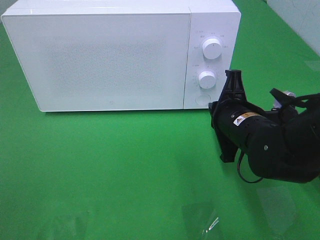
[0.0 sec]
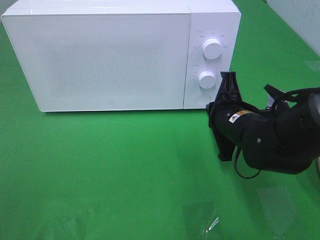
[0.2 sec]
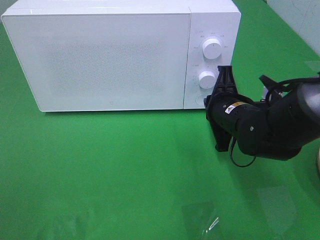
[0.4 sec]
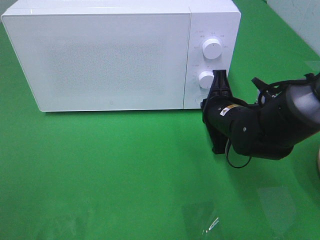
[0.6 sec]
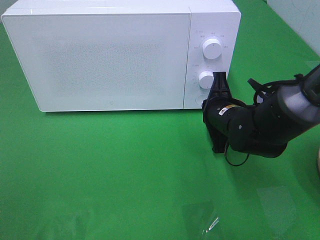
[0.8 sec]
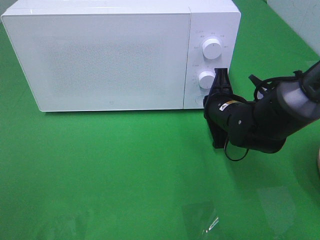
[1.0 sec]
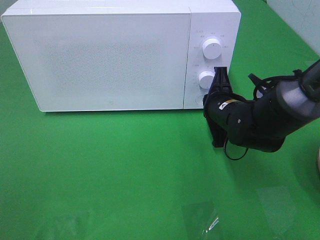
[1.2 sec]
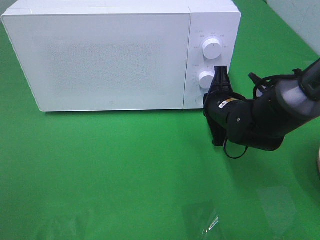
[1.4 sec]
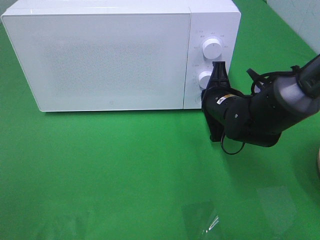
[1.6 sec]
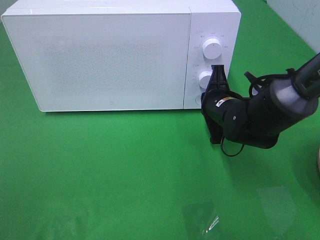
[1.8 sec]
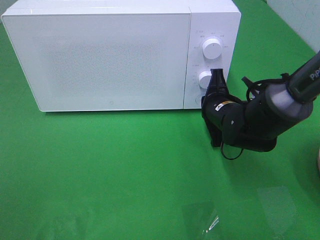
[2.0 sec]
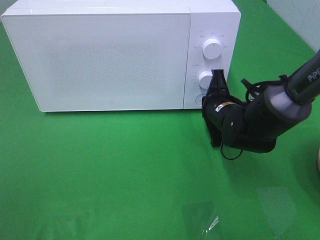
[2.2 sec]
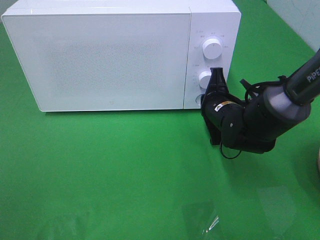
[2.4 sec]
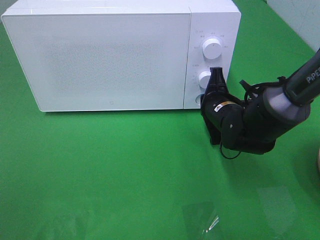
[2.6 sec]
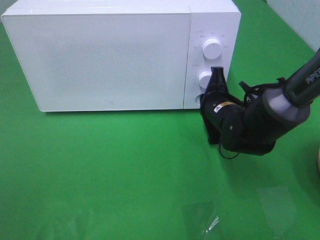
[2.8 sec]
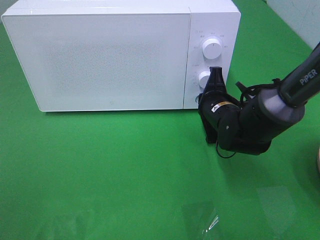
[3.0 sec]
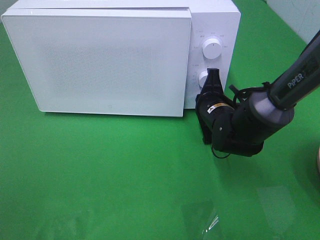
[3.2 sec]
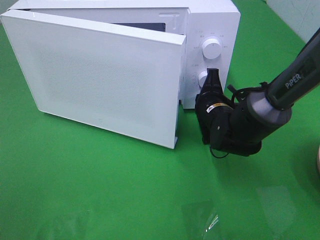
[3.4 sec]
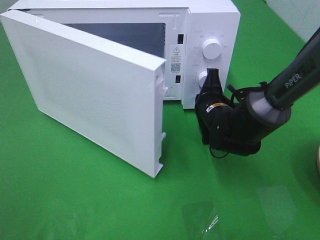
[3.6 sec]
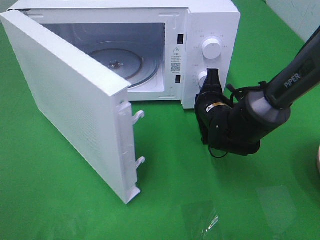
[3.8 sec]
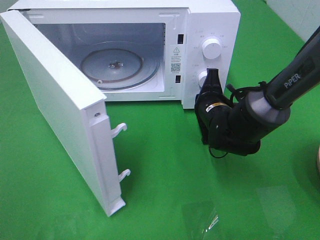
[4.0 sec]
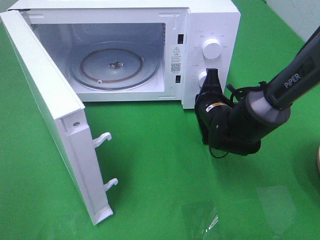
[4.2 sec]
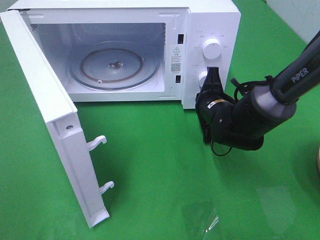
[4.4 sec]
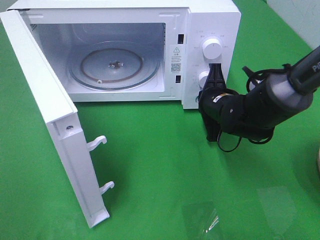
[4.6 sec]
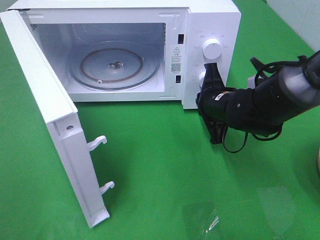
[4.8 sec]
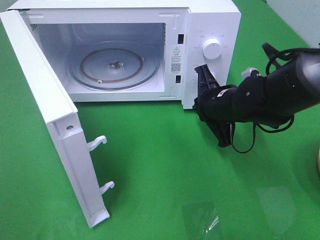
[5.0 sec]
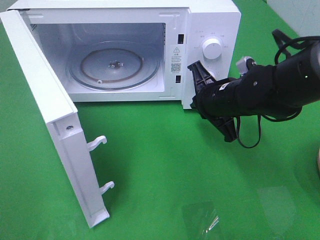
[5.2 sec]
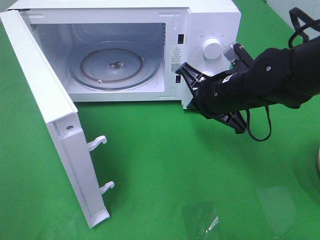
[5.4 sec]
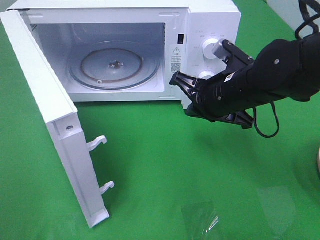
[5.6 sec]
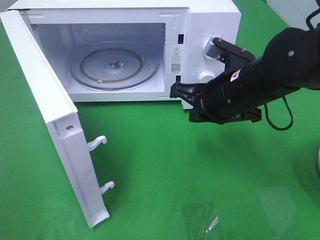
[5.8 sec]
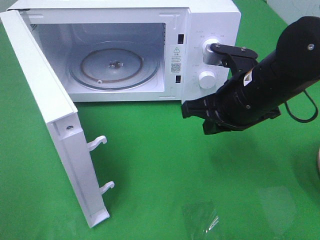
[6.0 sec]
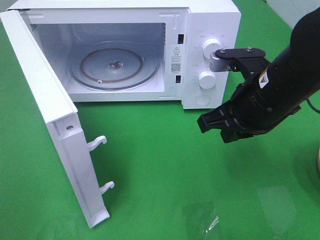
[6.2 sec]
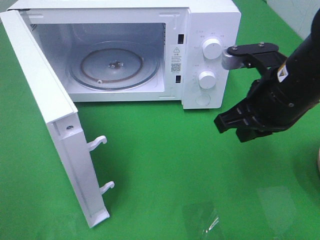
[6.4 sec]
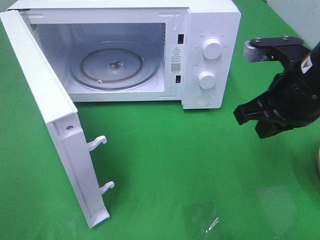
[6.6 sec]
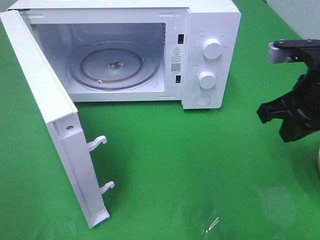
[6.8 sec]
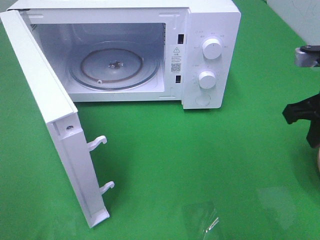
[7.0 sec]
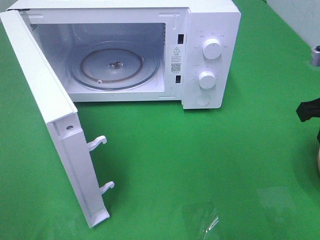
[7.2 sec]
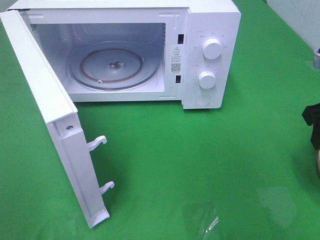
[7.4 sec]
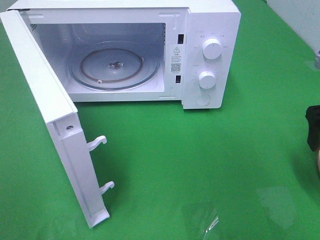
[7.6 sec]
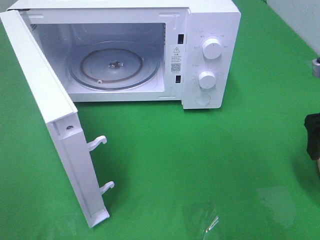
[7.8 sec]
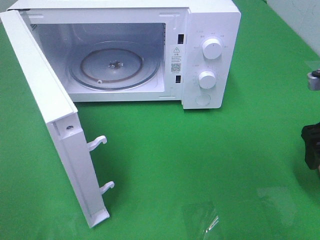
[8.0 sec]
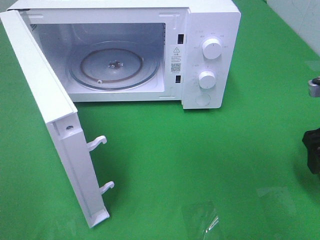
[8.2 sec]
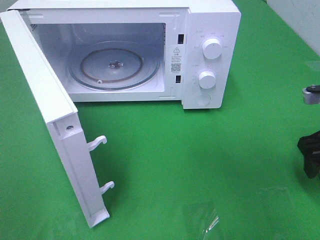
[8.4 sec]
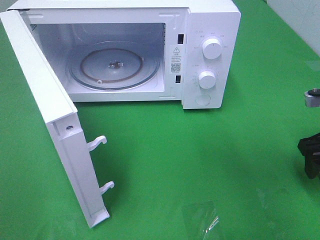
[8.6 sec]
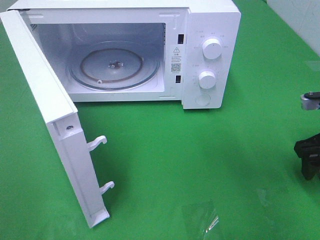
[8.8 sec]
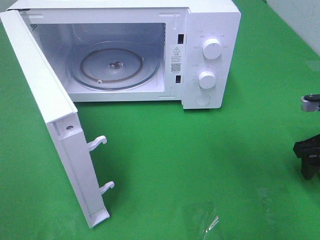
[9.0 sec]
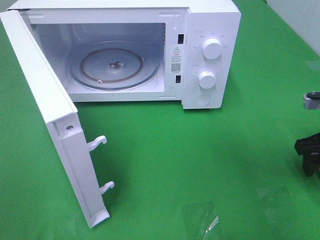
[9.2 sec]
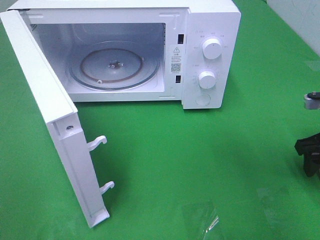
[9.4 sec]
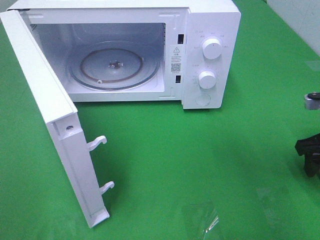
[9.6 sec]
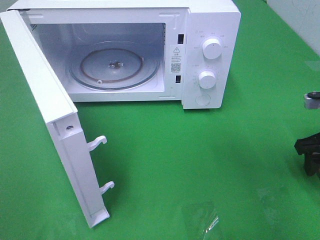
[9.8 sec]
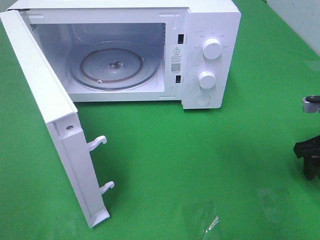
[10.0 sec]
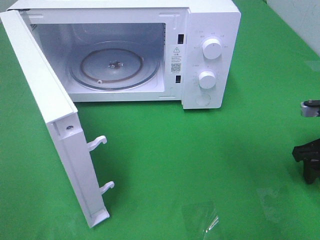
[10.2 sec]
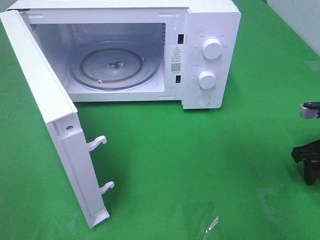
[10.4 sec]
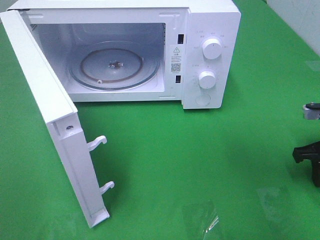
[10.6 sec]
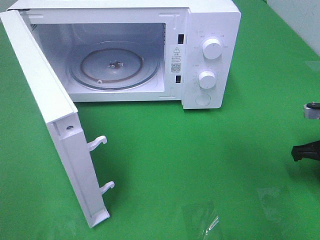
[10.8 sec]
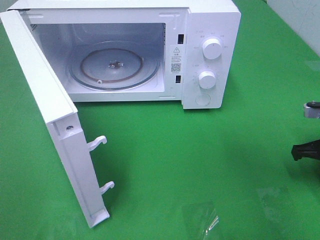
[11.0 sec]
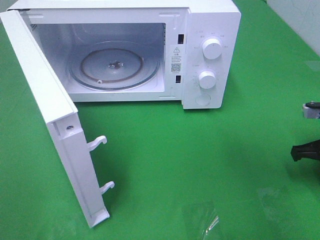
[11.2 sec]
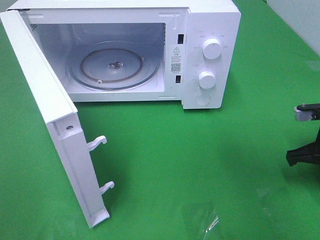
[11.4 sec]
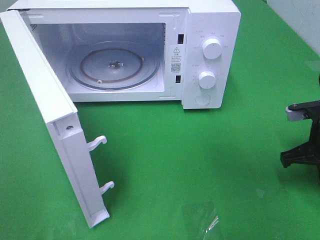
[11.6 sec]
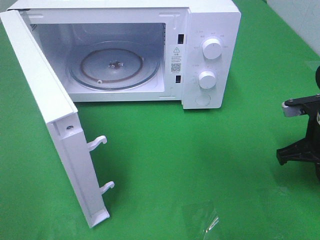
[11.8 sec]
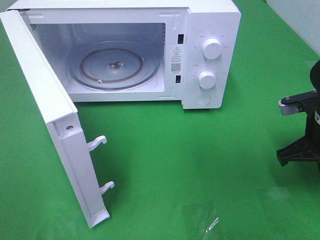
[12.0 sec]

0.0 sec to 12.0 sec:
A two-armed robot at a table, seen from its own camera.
Task of the whole recording: Heat the burger.
Step, 0.0 sec to 4.6 sec: Right hand: press the switch.
Step, 4.8 sec to 11.4 sec: Right hand: grab the plate with the hamburger.
0.0 sec to 1.6 sec: The right gripper goes some 5 cm forward.
1.6 sec to 3.0 sec: The grippers stay close to where they were, moving slightly.
4.4 sec to 6.0 sec: The right gripper heads upward and backward, covering some 15 cm.
6.0 sec to 7.6 sec: The right gripper travels to the right by approximately 15 cm, and opens.
7.6 sec to 9.0 sec: The right gripper travels downward by some 10 cm.
10.4 sec to 12.0 sec: The right gripper is displaced to the left by roughly 5 cm, and closes its fingers.

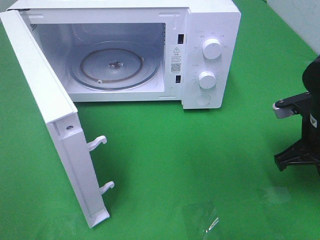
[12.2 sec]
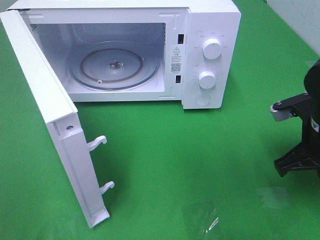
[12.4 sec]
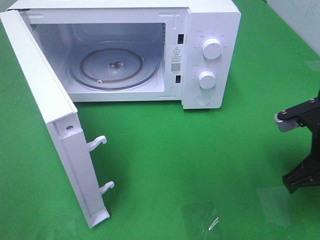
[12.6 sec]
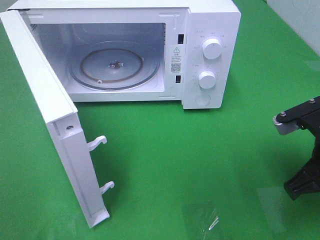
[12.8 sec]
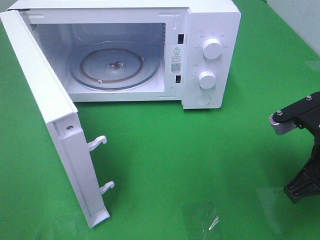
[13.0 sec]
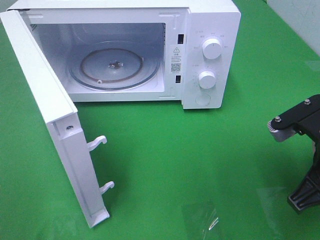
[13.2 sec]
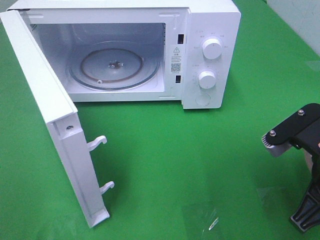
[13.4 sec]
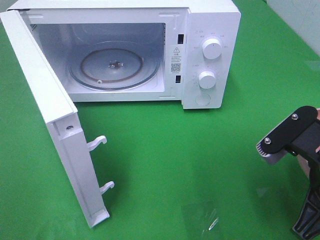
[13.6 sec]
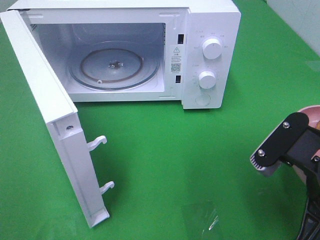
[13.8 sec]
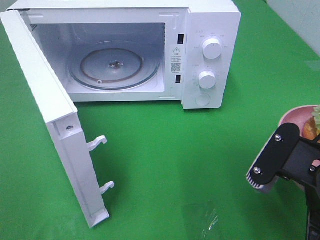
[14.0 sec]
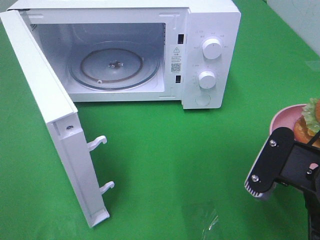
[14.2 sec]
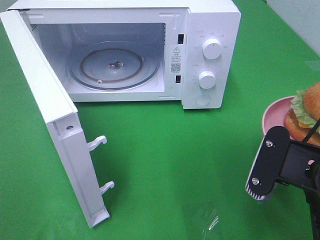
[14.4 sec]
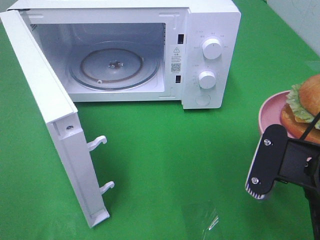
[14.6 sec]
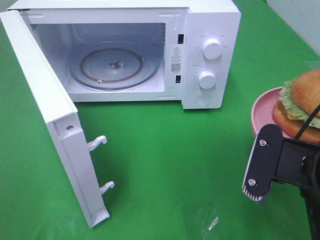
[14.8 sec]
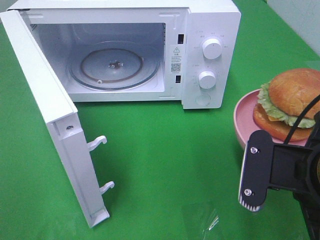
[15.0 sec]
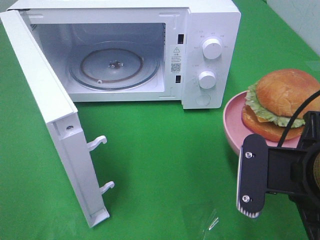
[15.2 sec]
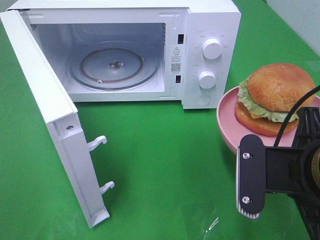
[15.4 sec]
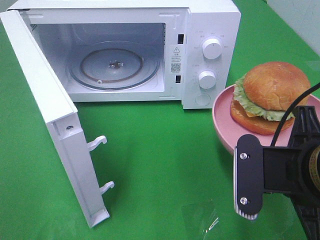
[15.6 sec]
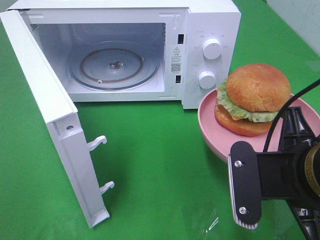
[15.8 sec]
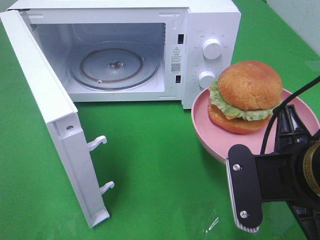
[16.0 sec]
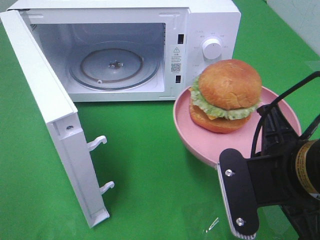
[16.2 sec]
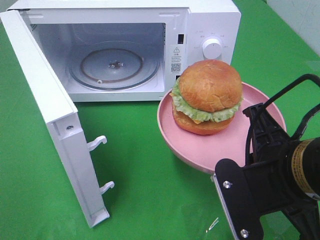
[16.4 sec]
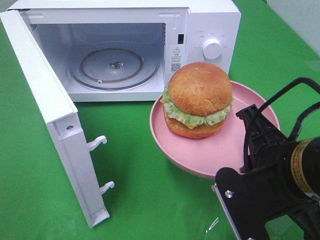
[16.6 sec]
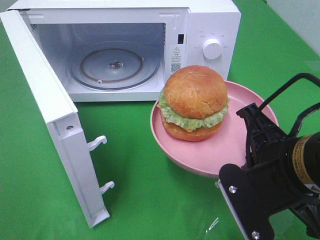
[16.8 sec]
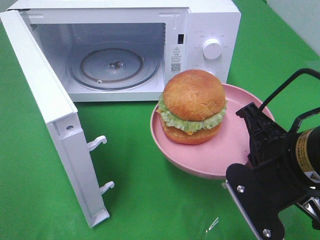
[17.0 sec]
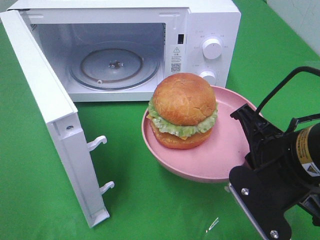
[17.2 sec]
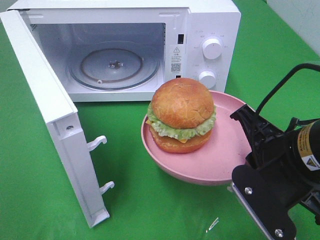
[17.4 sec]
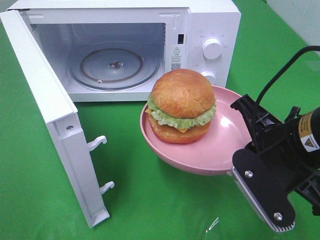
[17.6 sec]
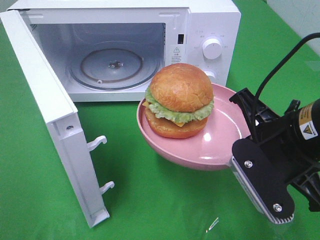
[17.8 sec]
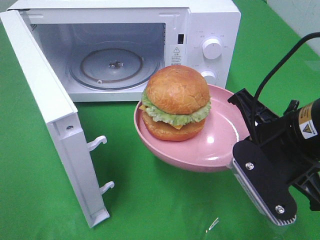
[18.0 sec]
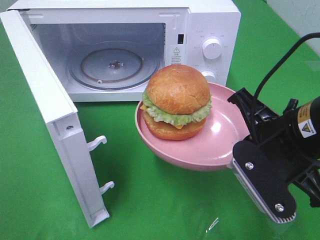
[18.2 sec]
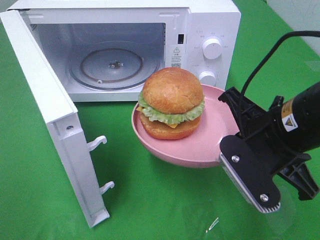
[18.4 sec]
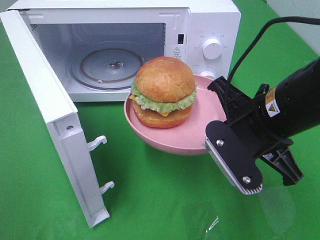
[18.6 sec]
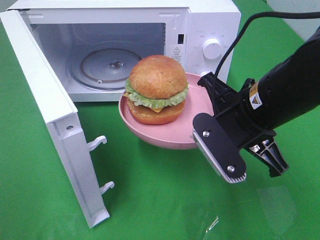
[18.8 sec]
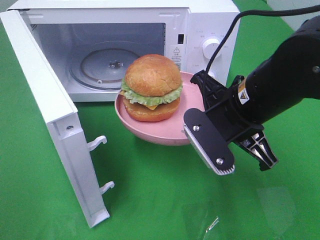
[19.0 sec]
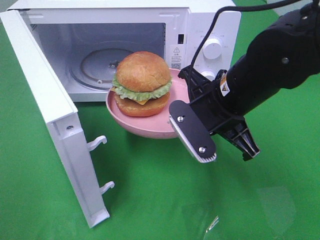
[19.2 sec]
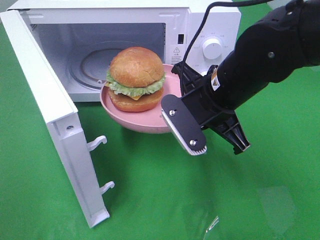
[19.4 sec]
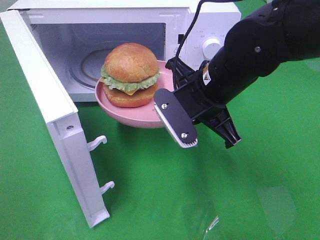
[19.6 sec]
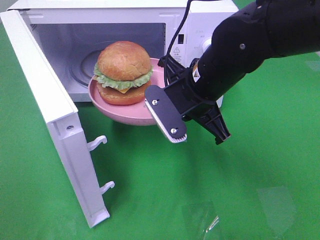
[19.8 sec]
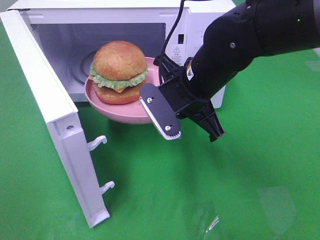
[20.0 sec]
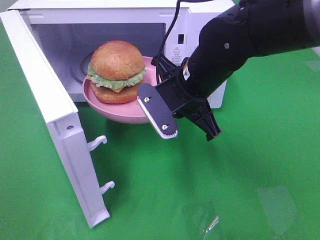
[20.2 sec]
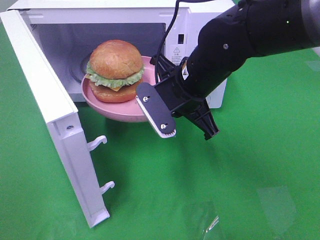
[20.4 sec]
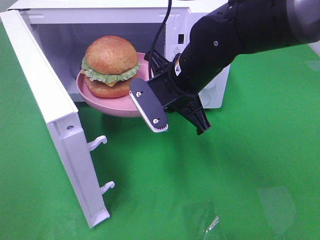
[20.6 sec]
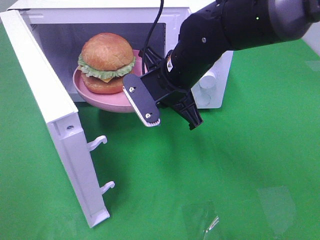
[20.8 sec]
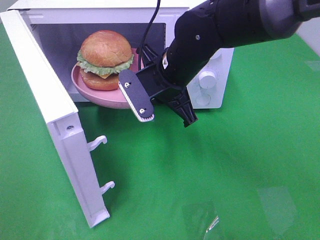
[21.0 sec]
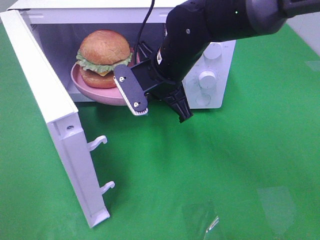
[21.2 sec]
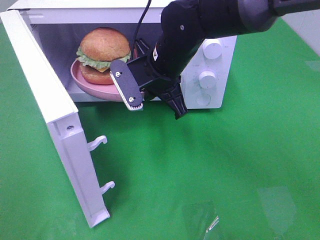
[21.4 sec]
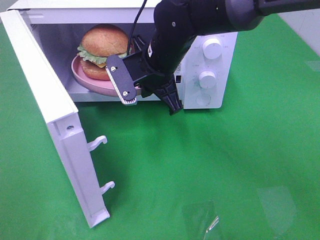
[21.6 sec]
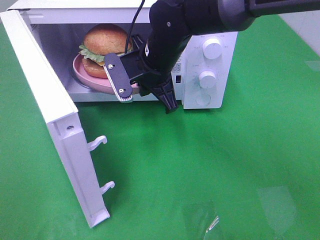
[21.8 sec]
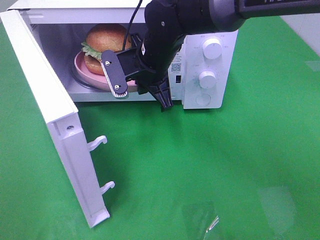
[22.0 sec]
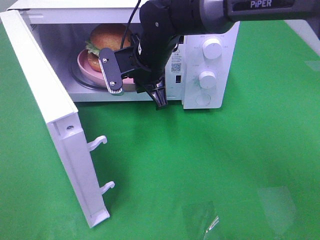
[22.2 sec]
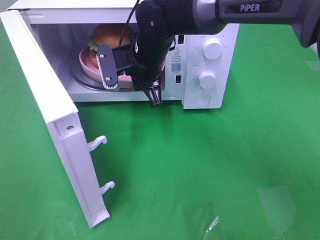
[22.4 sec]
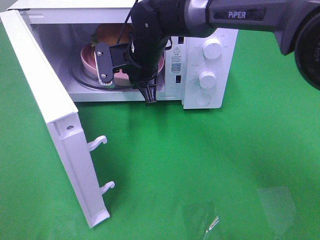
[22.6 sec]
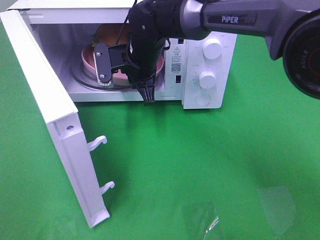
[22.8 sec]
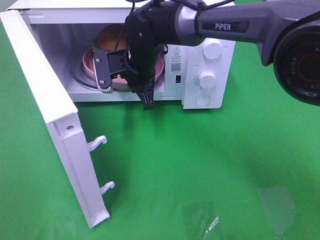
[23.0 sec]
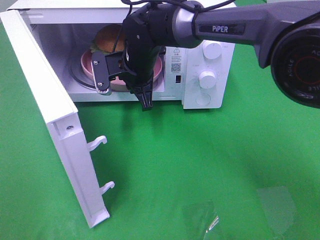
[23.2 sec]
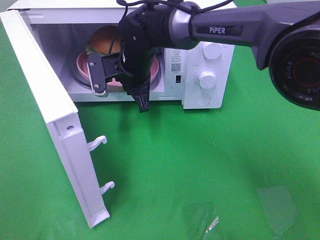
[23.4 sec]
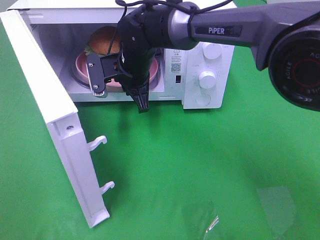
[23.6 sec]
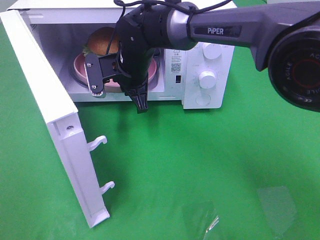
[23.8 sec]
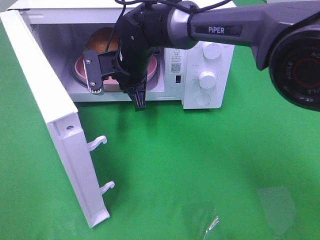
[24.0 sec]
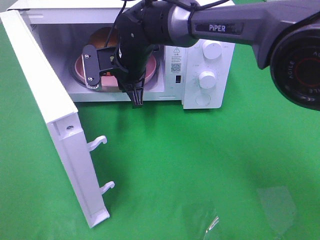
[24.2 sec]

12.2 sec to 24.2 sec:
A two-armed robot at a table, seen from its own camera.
Task of the whole recording: Heat the burger.
Step, 12.2 sec to 24.0 sec: Right hand: place the plate in the microwave.
12.2 sec to 13.8 sec: The right gripper is displaced backward and to the left by roughly 15 cm.
16.6 sec to 18.2 sec: The right gripper moves approximately 5 cm.
18.2 sec to 19.8 sec: The right gripper travels forward and to the left by roughly 15 cm.
19.8 sec to 21.2 sec: The right gripper is displaced forward by roughly 5 cm.
21.2 sec to 22.6 sec: The right gripper moves forward, some 5 cm.
22.6 sec to 24.2 sec: The grippers move only a little.
